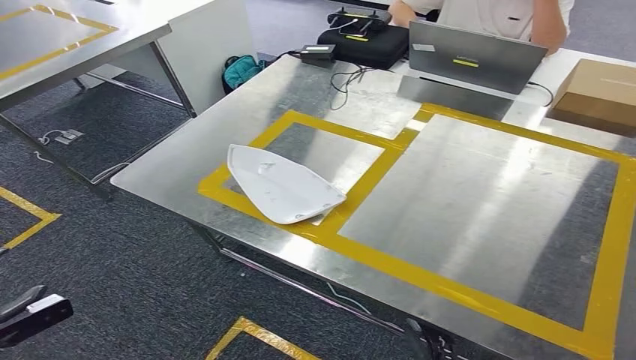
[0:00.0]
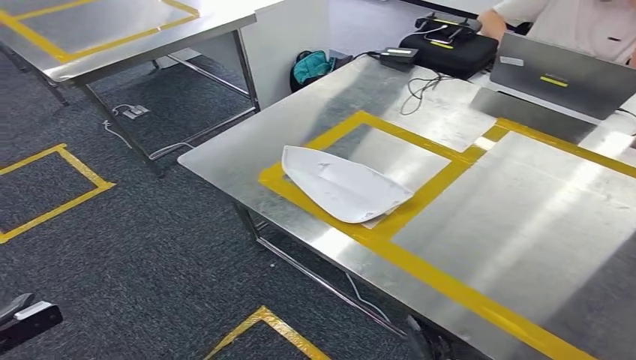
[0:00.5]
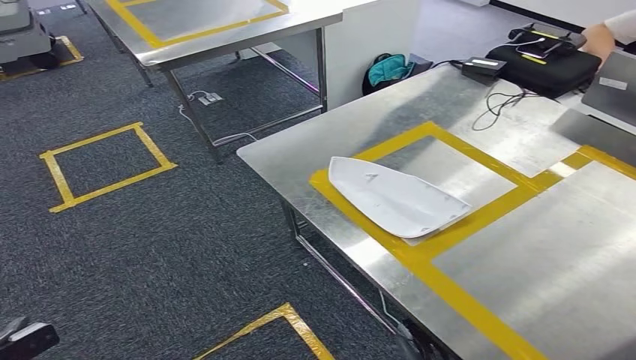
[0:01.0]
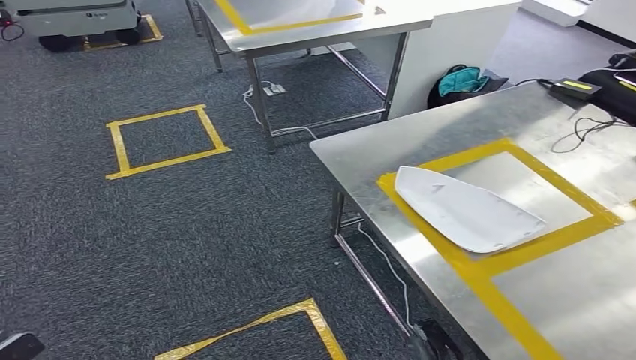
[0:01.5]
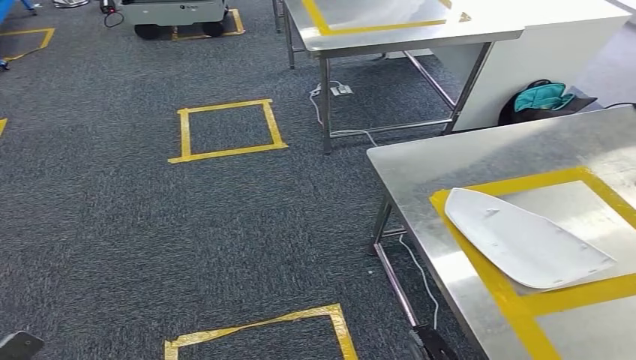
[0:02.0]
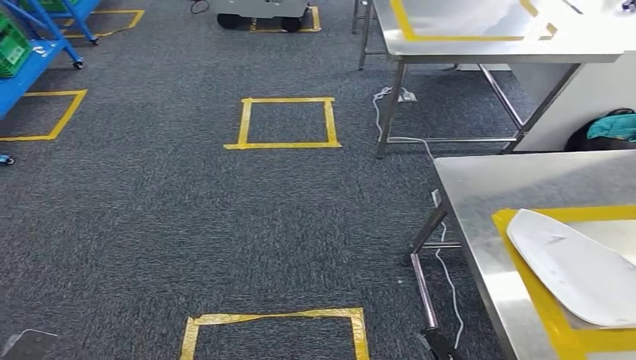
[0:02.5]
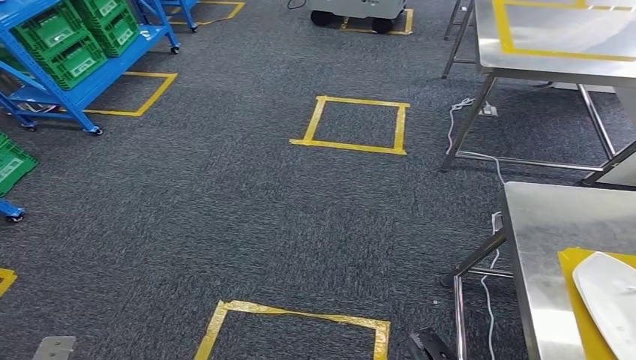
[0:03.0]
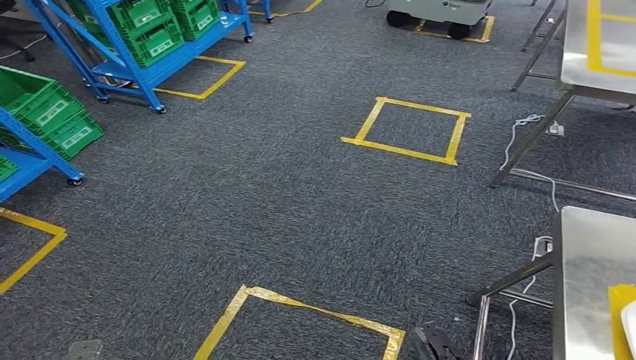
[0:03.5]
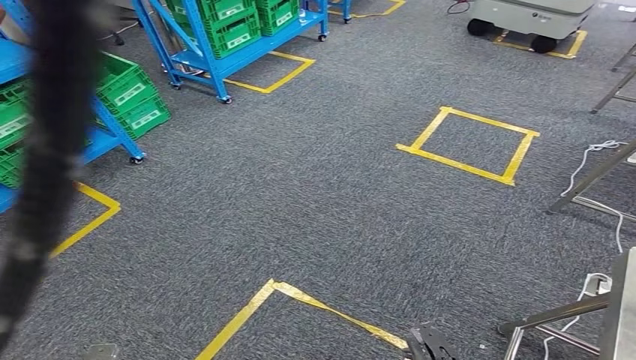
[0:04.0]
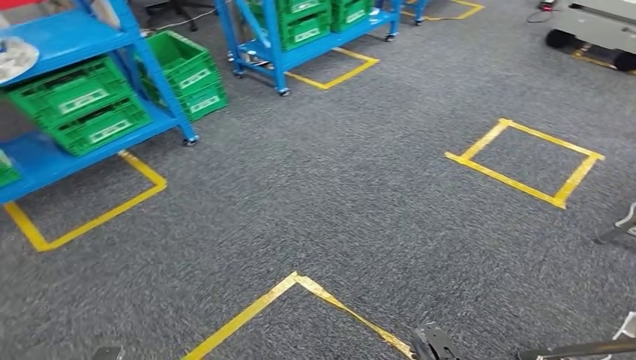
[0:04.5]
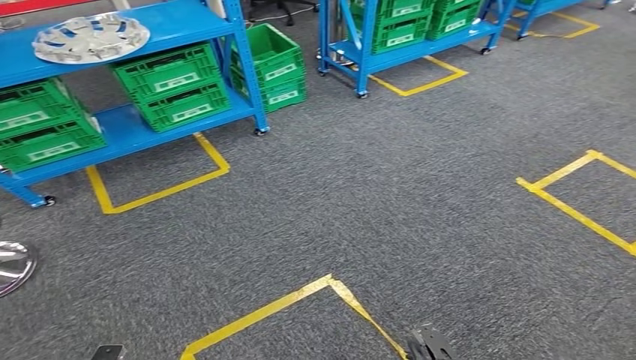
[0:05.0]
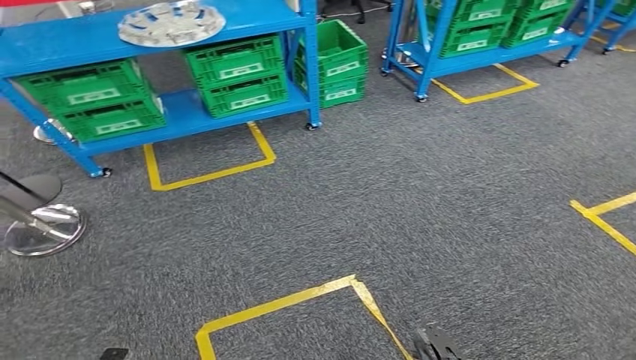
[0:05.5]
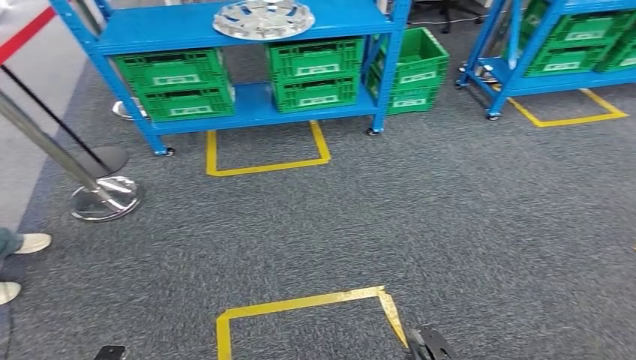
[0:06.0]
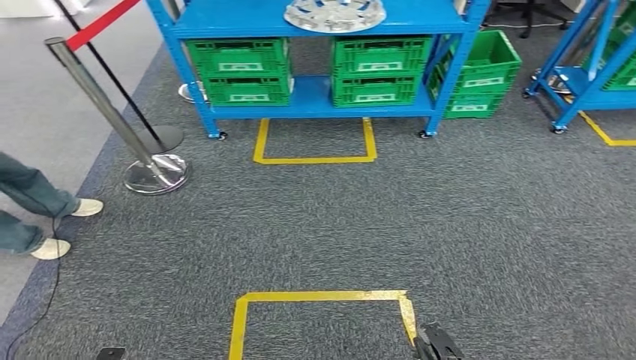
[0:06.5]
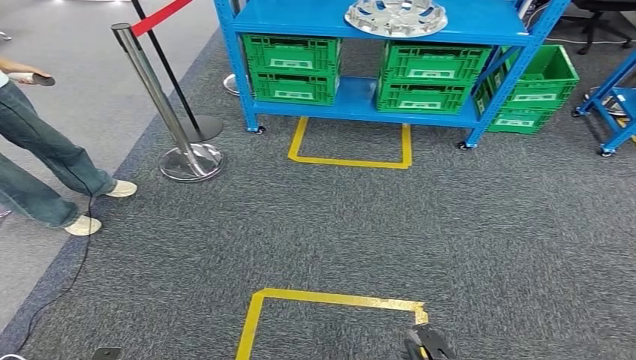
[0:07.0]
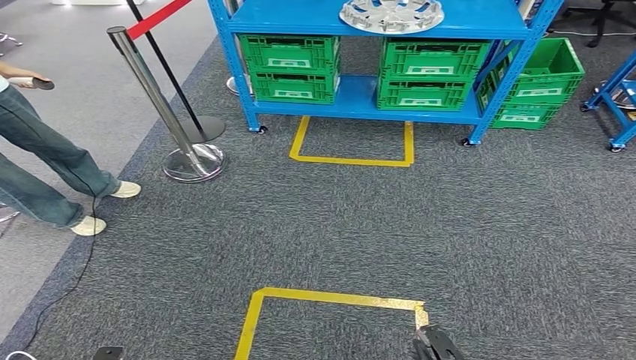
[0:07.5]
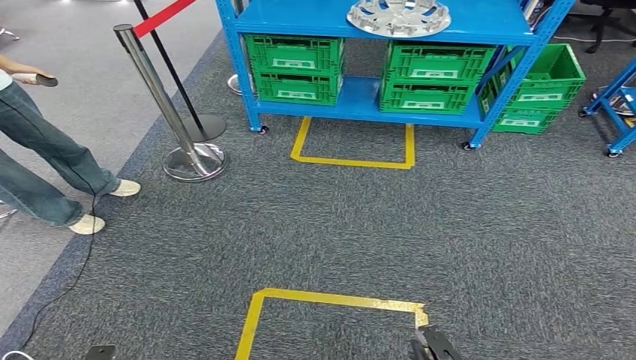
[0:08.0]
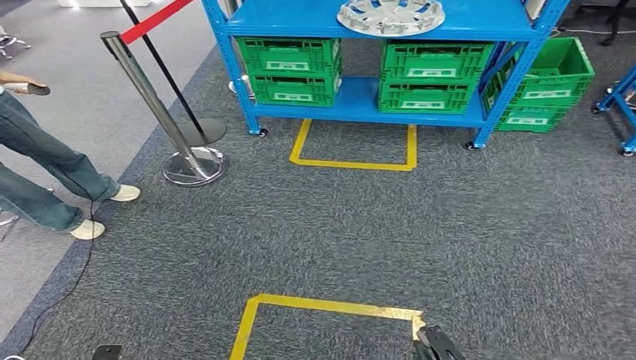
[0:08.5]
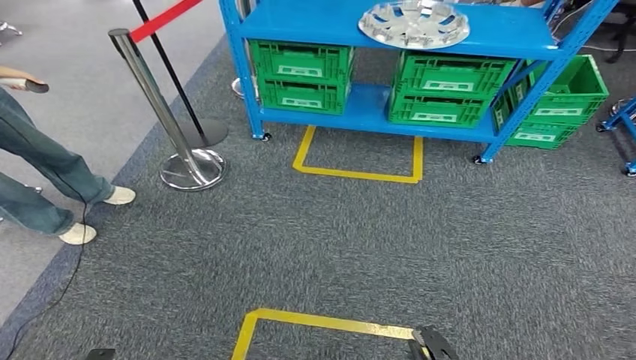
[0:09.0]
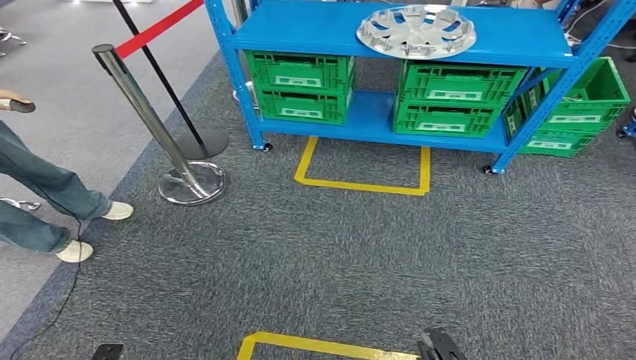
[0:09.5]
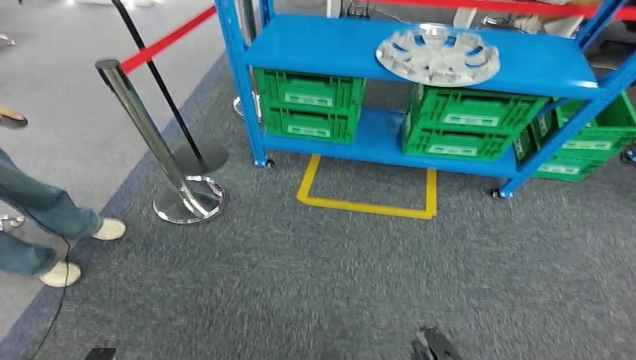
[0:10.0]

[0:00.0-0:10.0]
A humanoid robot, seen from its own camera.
Step, 0:00.0 to 0:10.0: Move to the initial position at the workbench.
